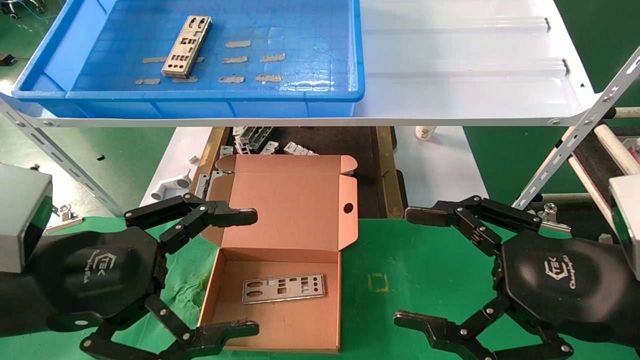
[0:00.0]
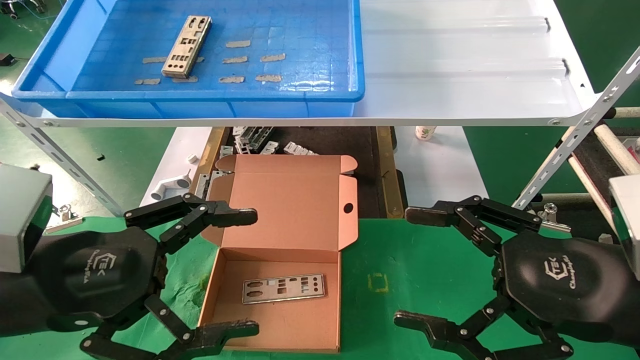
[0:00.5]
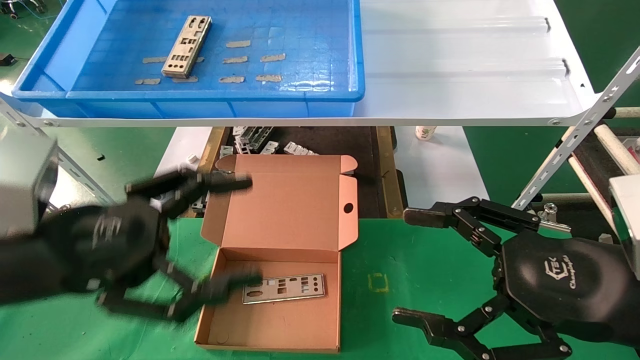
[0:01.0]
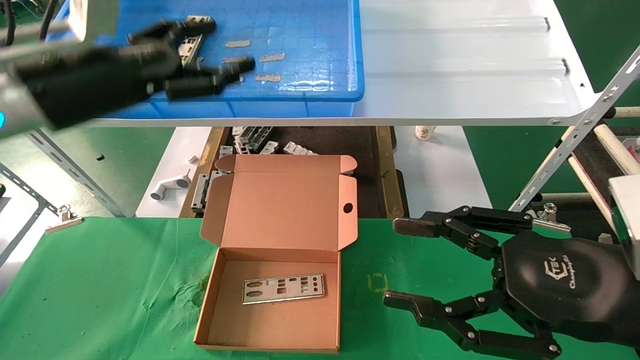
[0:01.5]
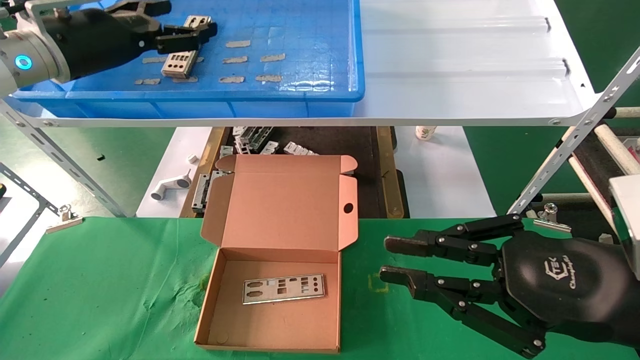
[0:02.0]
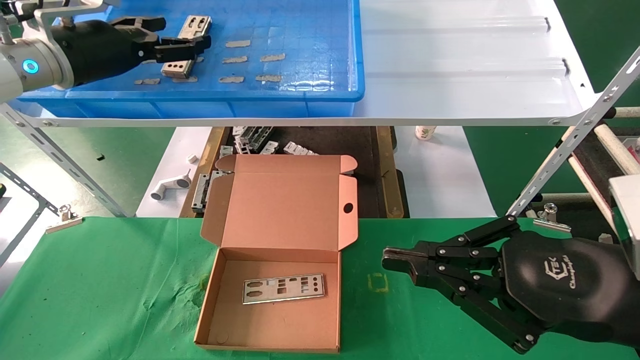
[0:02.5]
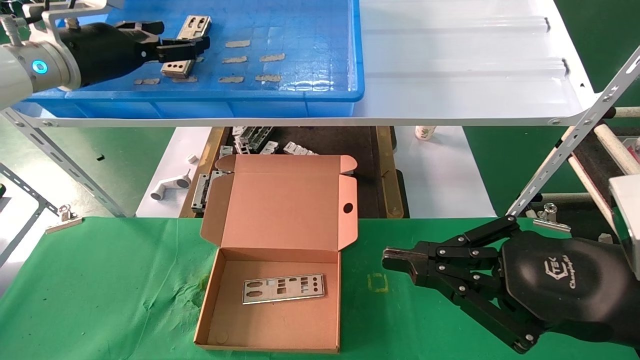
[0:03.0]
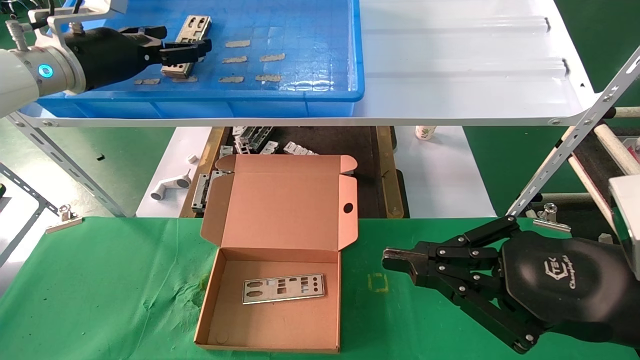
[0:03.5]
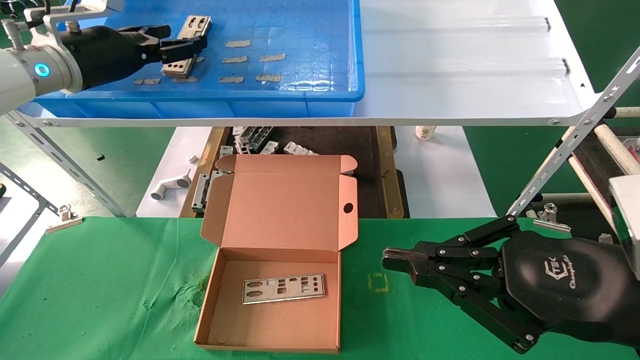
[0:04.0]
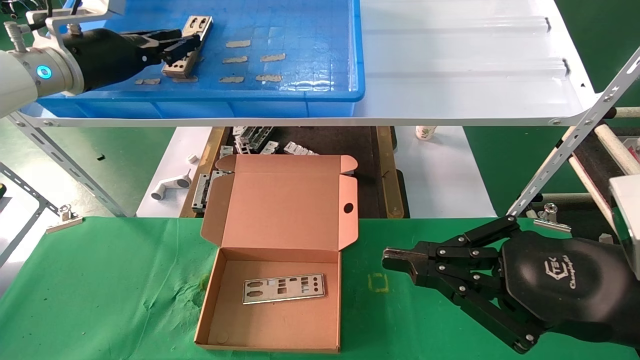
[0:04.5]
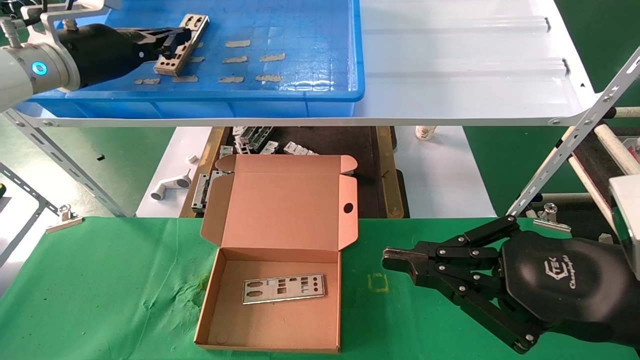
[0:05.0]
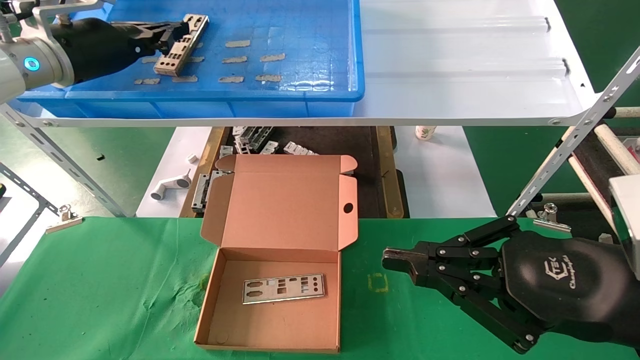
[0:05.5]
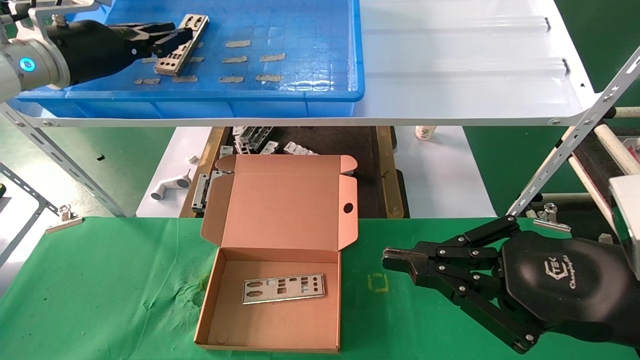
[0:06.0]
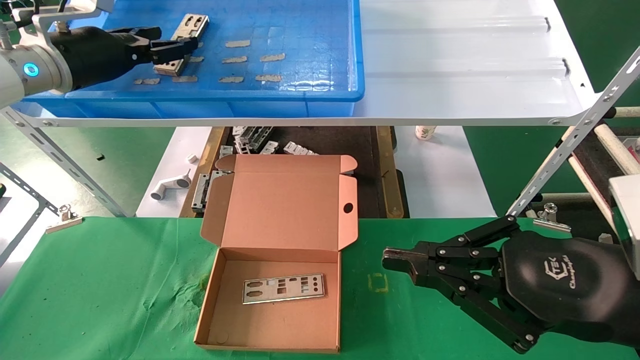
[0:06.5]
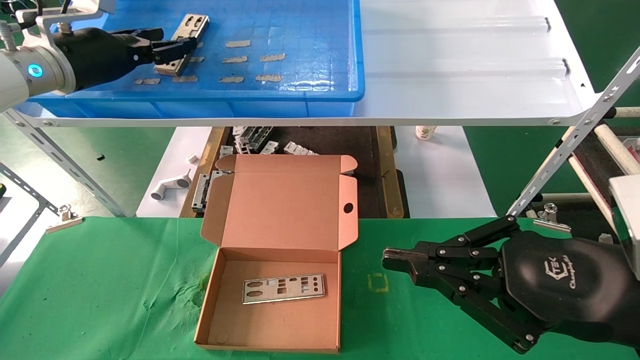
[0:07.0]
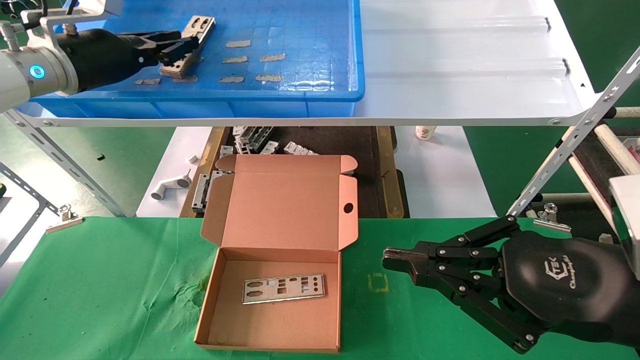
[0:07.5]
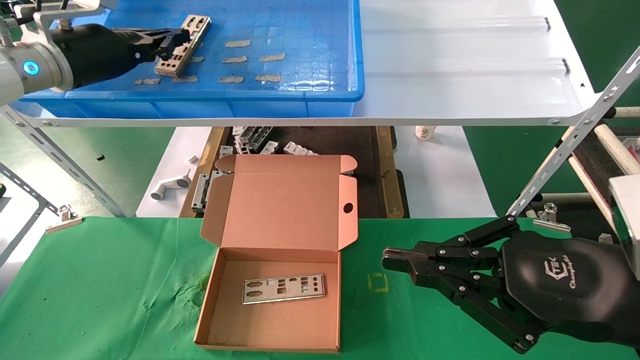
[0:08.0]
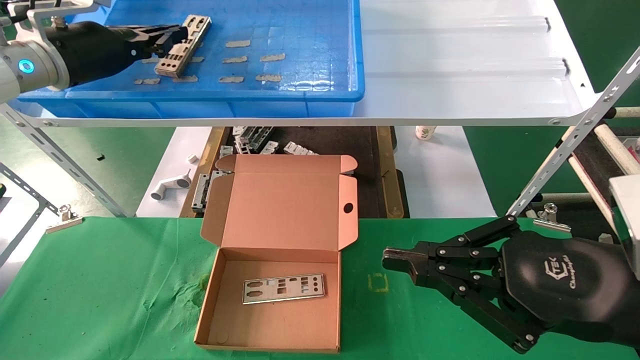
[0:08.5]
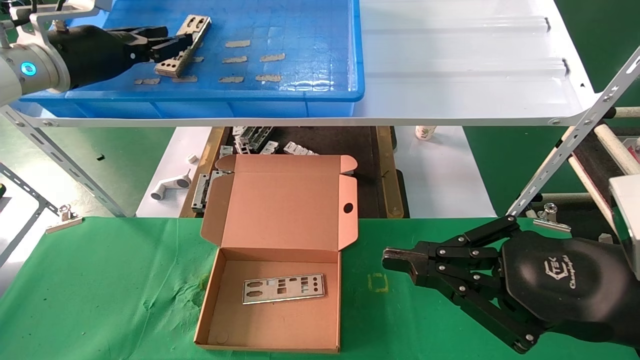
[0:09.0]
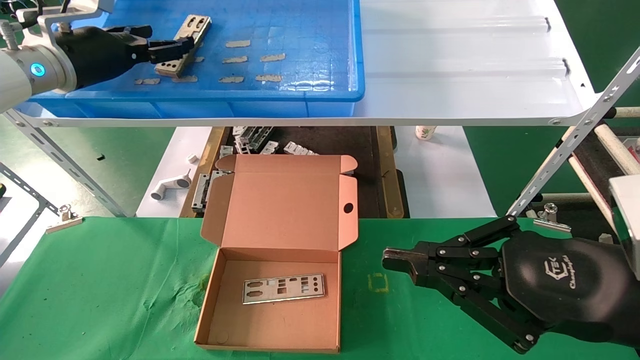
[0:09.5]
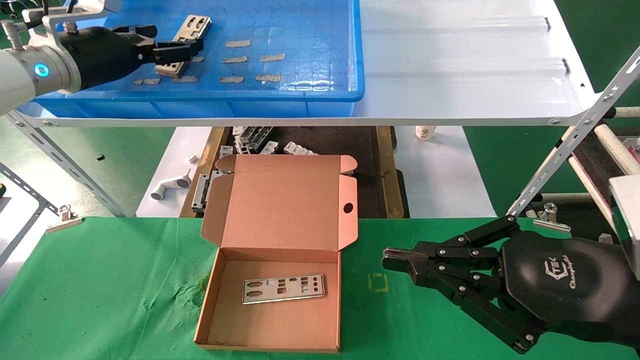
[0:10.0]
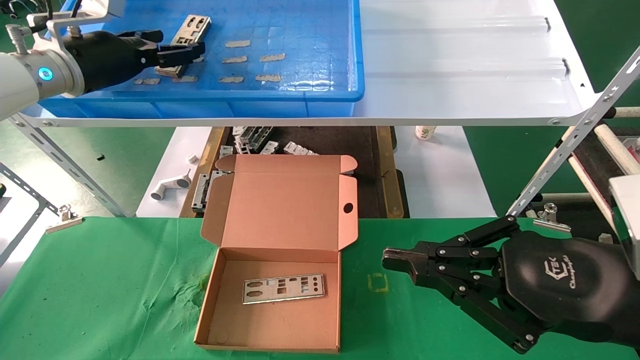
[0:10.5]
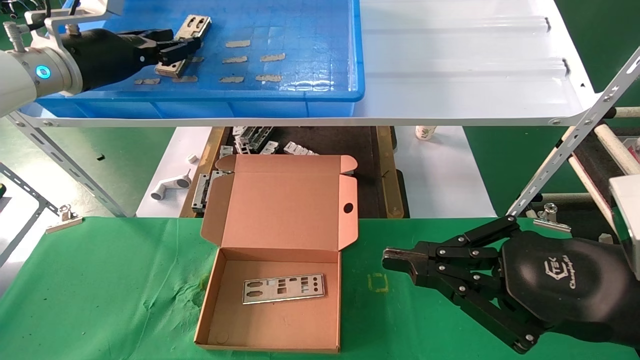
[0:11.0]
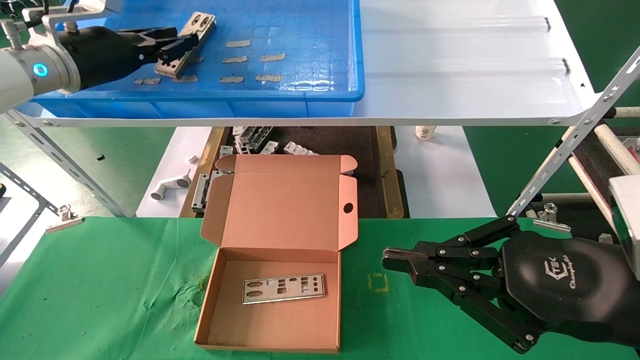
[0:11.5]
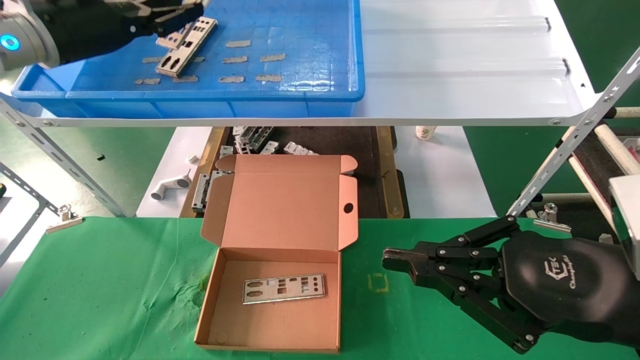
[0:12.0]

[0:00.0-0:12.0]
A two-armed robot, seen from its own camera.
Task of the whole recording: pick up the parts on the tray and put them in the cardboard box.
Step, 0:01.5 to 0:11.5: Pick up the IO bracket from the container box.
0:00.0 to 0:02.0: The right gripper closes up. Meanwhile the left gripper moves forward and upward, approximately 25 cm.
0:02.0 to 0:04.0: The grippers move only a little.
0:04.0 to 0:06.0: The left gripper closes its fingers.
0:06.0 to 0:08.0: The left gripper opens and closes again.
0:08.0 to 0:10.0: The left gripper opens its fingers.
0:10.0 to 0:12.0: The left gripper changes place by roughly 5 cm, and closes.

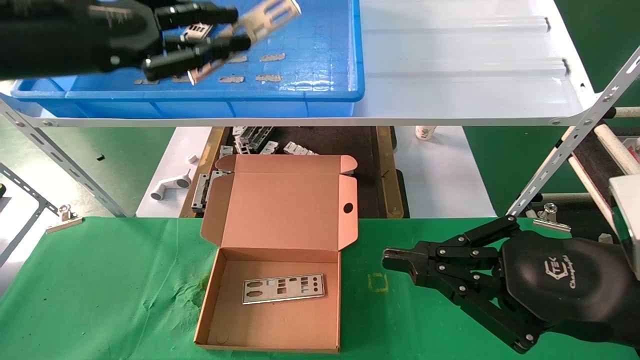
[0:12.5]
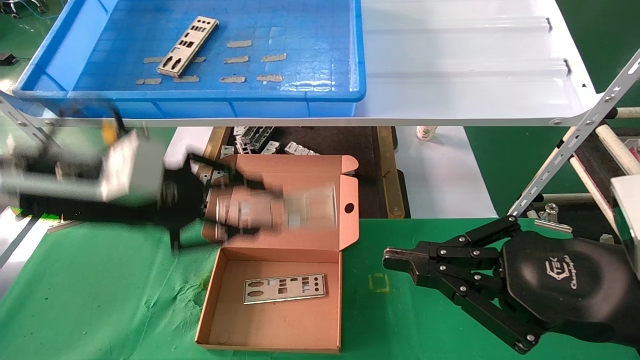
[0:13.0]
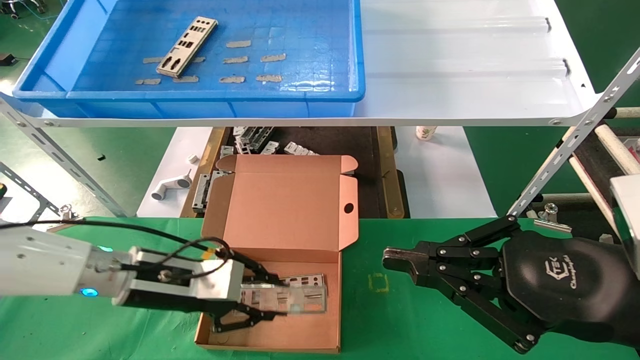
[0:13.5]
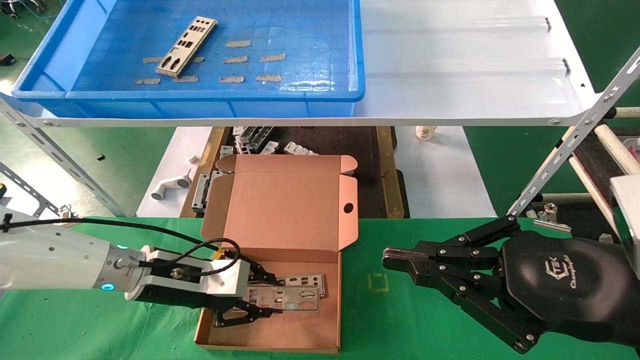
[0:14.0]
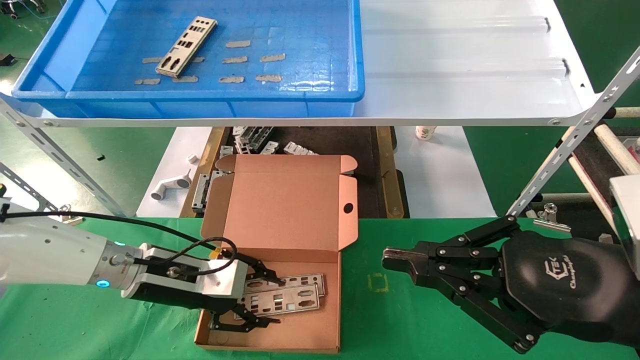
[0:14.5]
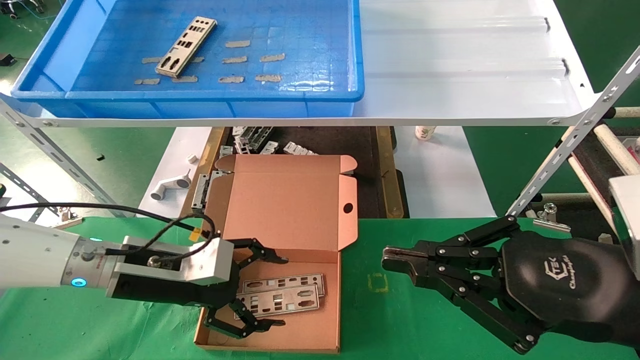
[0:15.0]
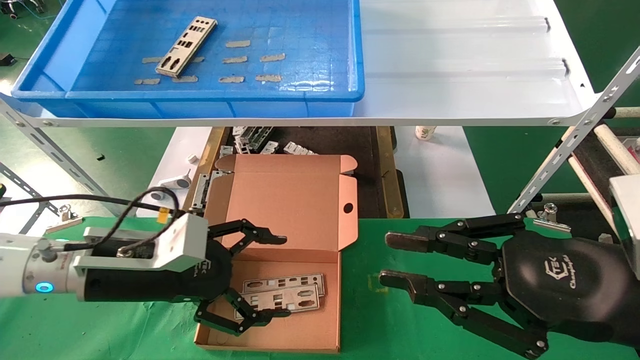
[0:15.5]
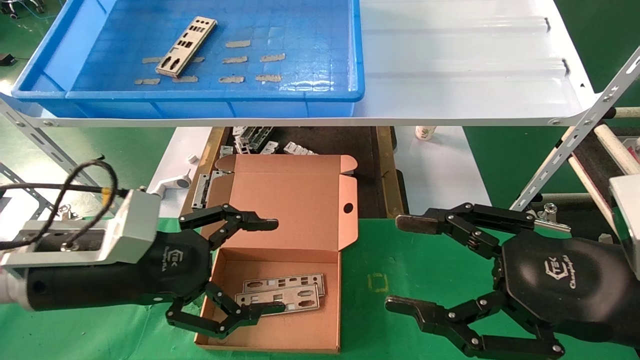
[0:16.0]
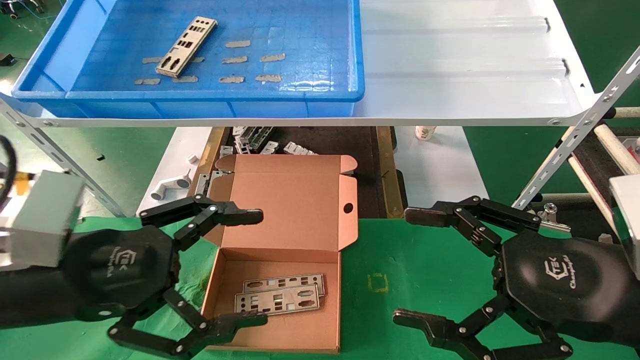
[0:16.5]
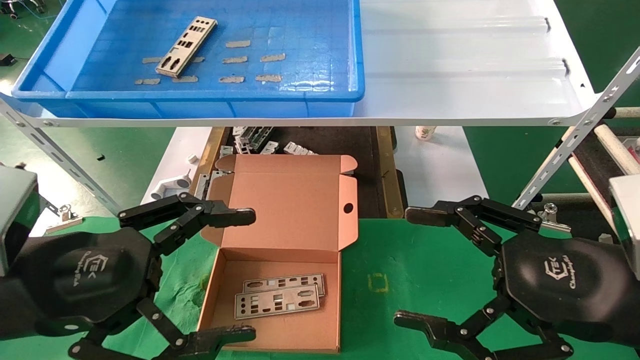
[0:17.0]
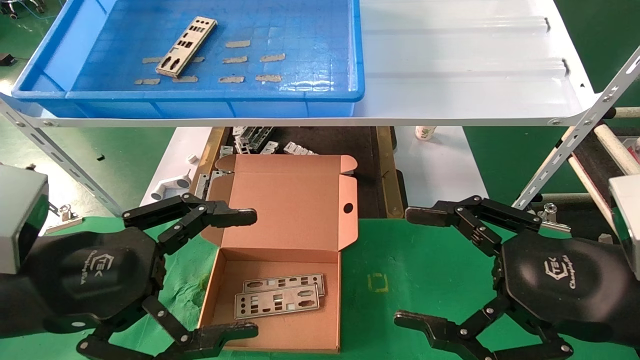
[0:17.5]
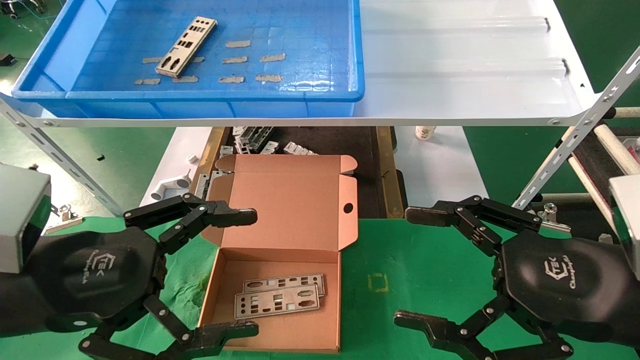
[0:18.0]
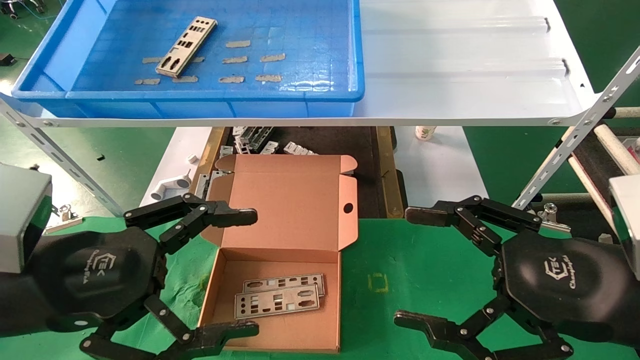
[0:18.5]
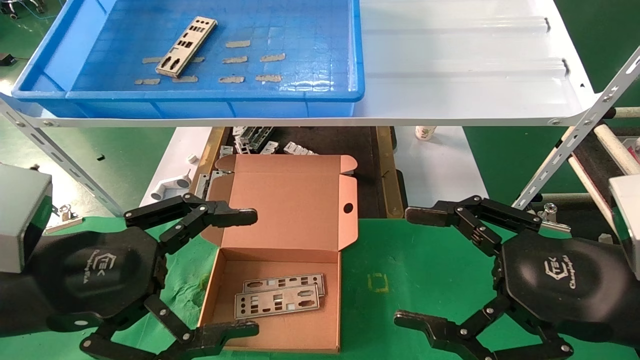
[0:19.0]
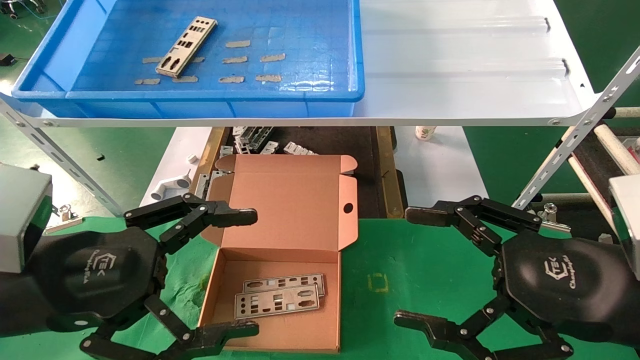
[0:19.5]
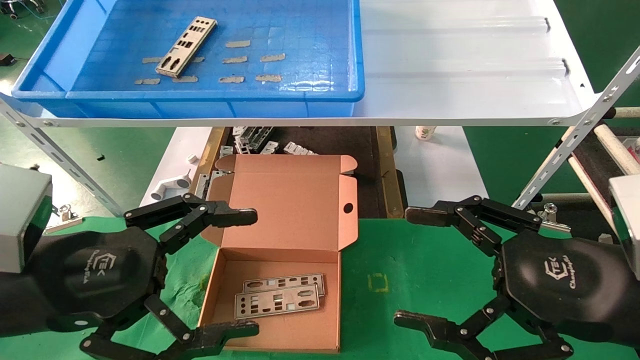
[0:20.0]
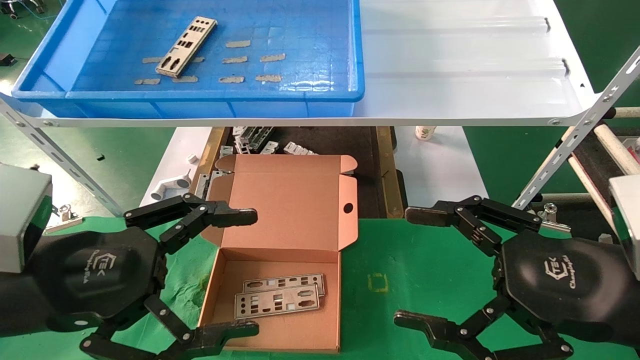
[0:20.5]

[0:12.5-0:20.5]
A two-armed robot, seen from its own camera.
Task of the whole recording: pick up the parts on the tray and put them in the cardboard box.
Step, 0:12.5 to 0:14.5: Place the IO bracket into the ingredient slot.
0:12.5 to 0:14.5: The left gripper is displaced downward by roughly 25 cm.
0:14.5 to 0:16.5: The right gripper opens its fingers; the left gripper shifts approximately 20 cm backward and upward, and opens its fingers.
0:16.5 to 0:18.5: The grippers stay close to where they were, moving slightly.
0:18.5 to 0:20.5: Both grippers stay put.
